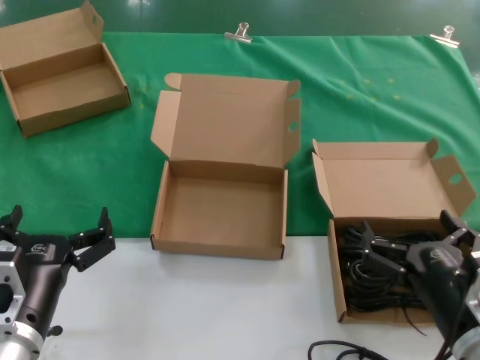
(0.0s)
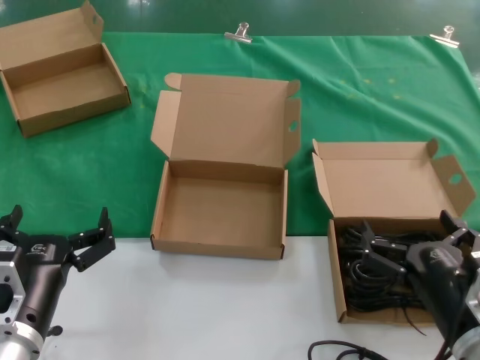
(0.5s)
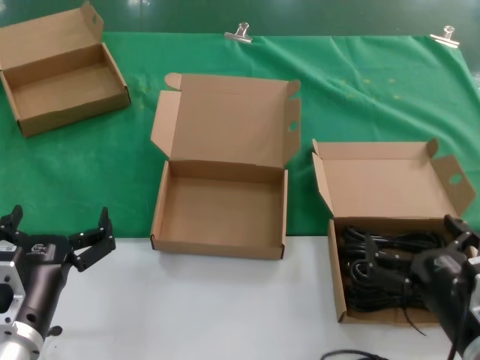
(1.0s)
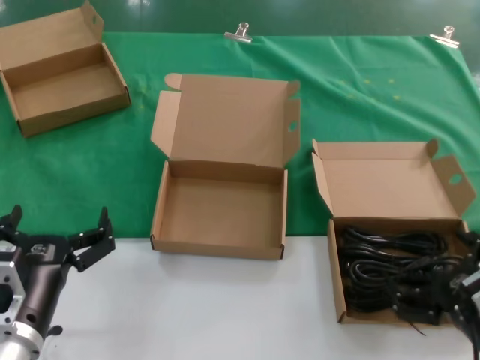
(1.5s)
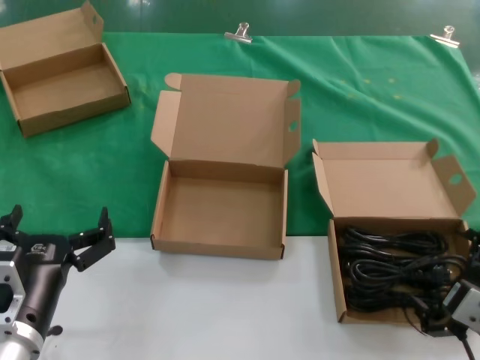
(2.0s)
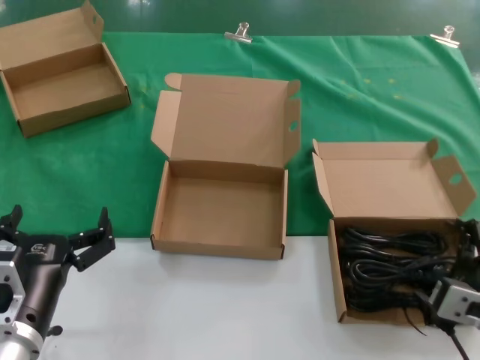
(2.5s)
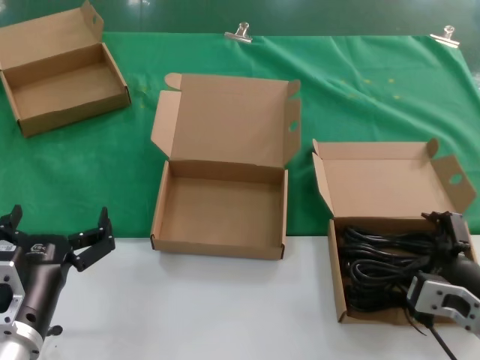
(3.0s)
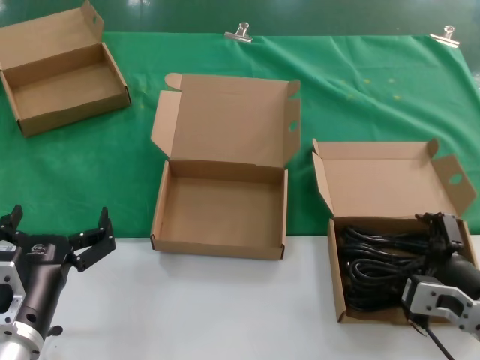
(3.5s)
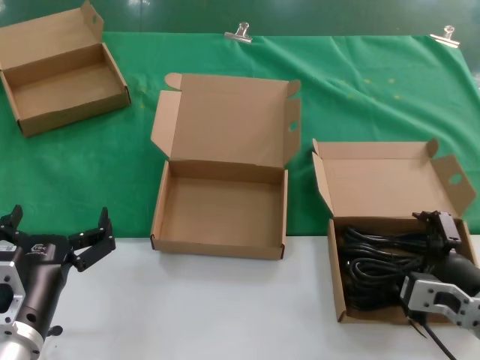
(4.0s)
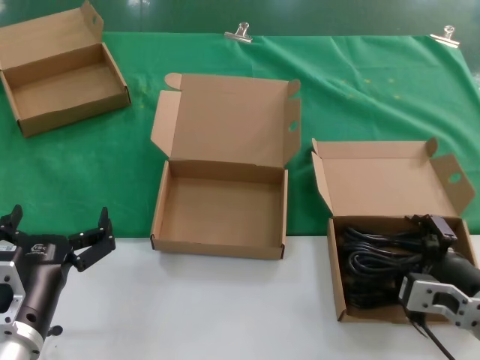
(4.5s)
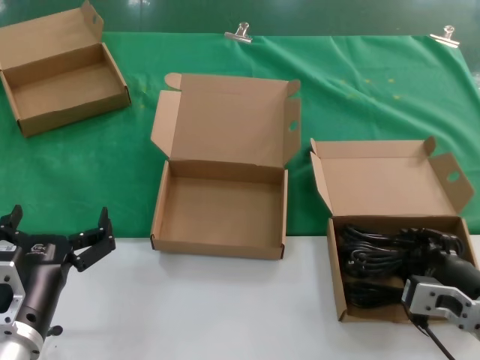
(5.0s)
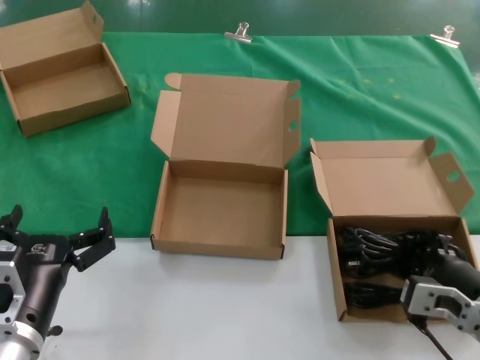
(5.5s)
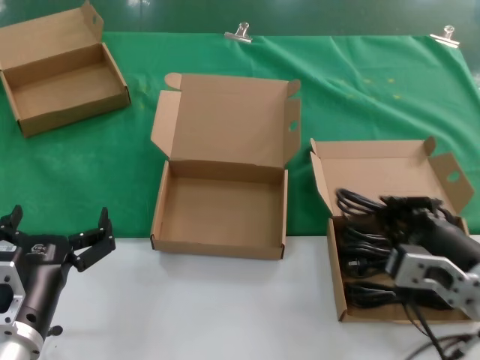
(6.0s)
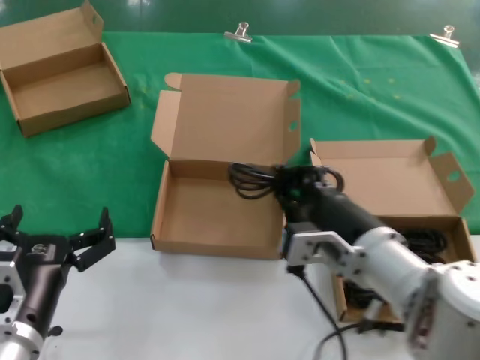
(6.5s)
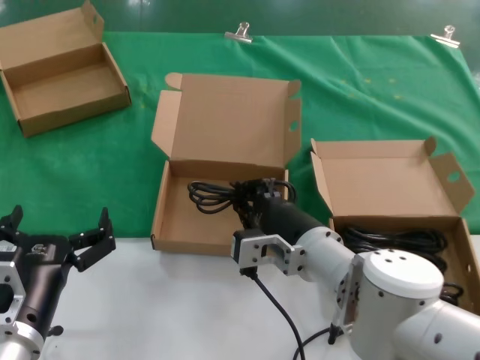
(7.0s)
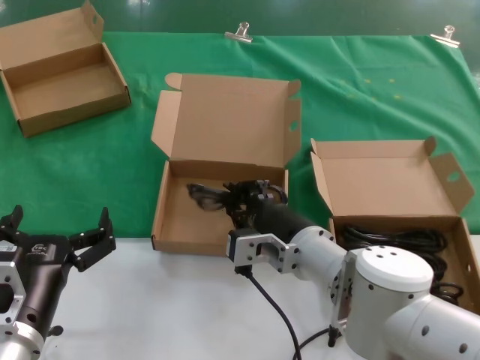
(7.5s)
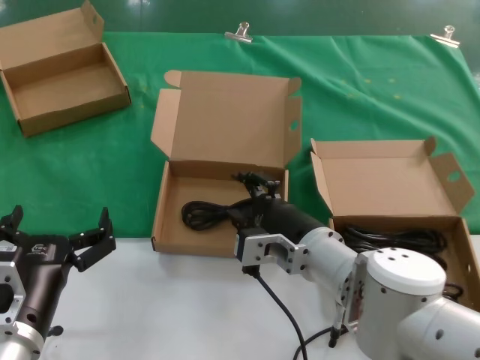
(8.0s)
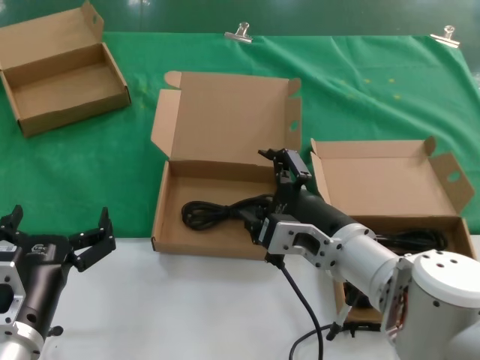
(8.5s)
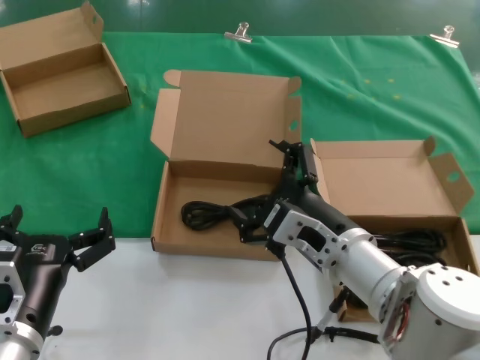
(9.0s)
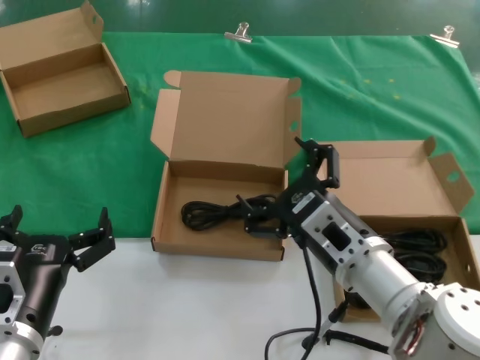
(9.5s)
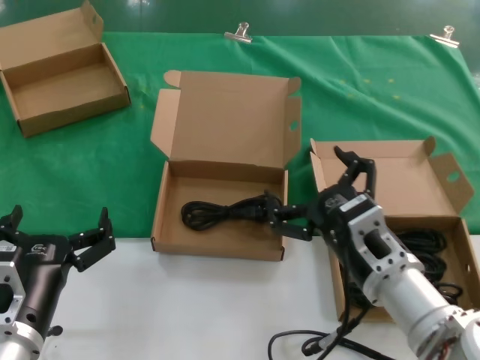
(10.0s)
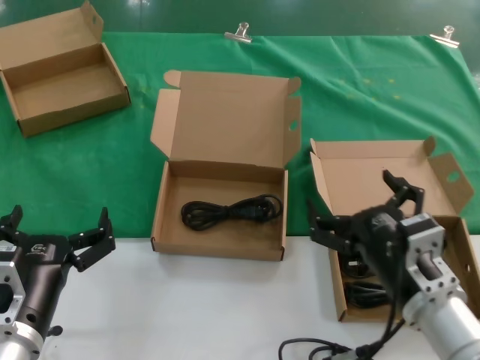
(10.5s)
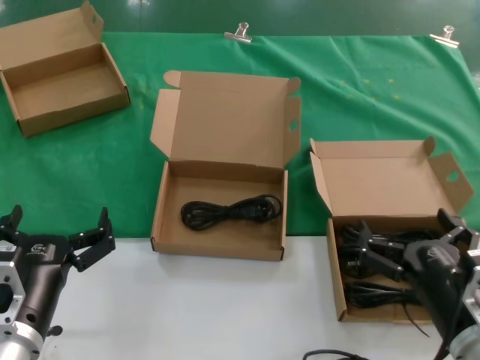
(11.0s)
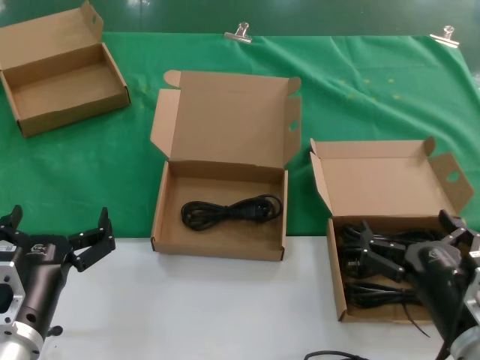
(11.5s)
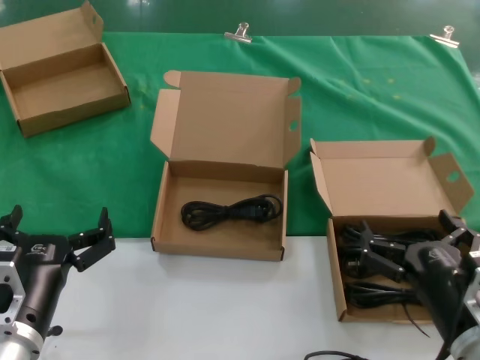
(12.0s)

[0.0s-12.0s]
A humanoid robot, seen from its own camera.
Task of the whole recording: take the parts from the box containing them and put them into an empty box.
Step, 0.0s to 5.0s: Grasp the data cable.
Step, 5.5s to 7.5s: Place the data cable in the another box.
0.0s to 2.0s: The right hand ends up about 5 cm from where it was.
2.0s to 4.0s: The right hand is displaced forward by some 5 cm.
4.0s to 6.0s: The right hand travels upward by roughly 5 cm.
6.0s to 8.0s: The right hand heads to the left and forward, covering about 20 cm.
8.0s to 10.0s: The right hand is displaced backward and to the right by about 10 cm.
10.0s to 12.0s: The right hand heads to the right and backward, covering about 10 cm.

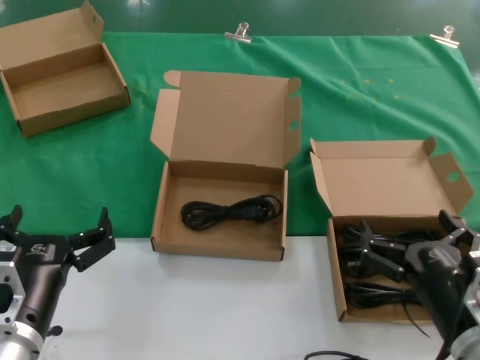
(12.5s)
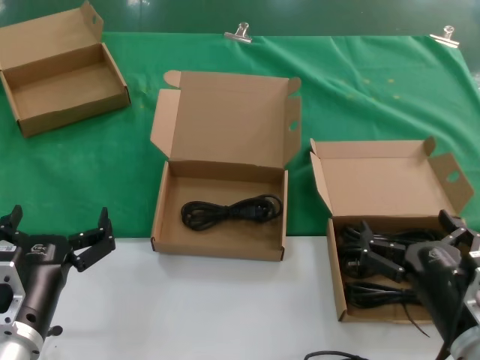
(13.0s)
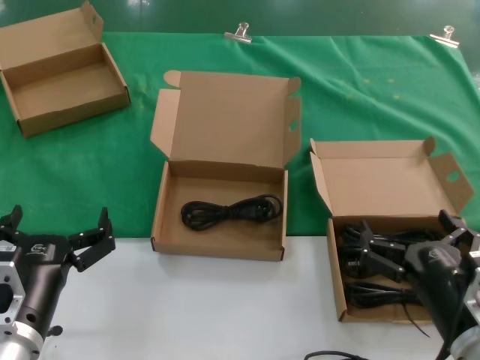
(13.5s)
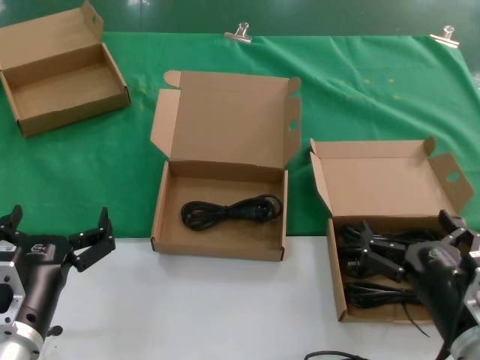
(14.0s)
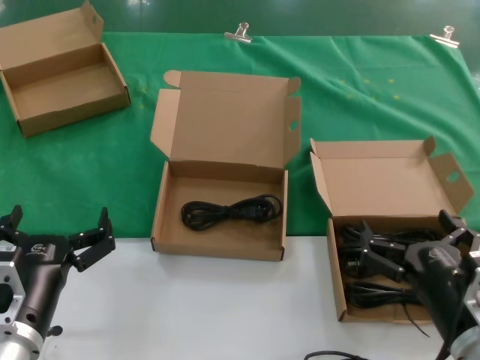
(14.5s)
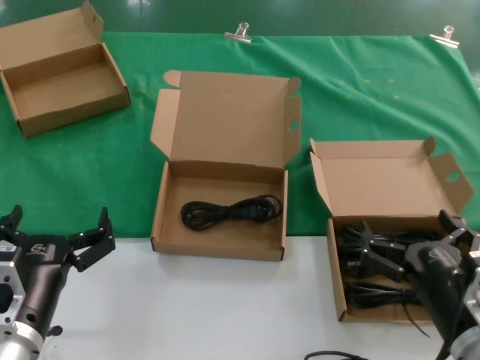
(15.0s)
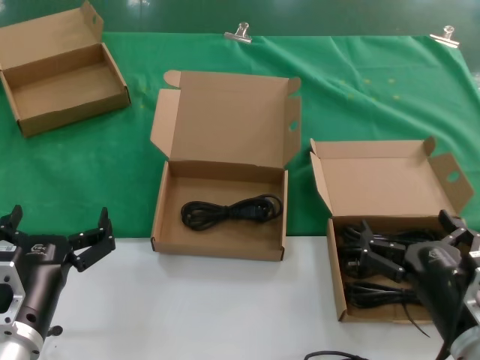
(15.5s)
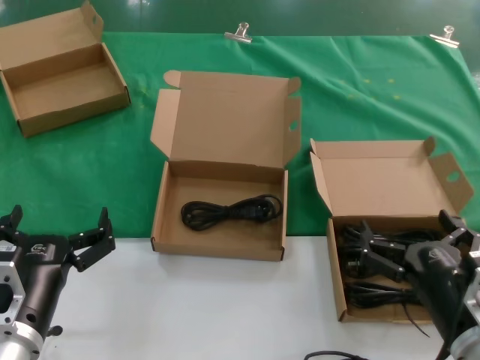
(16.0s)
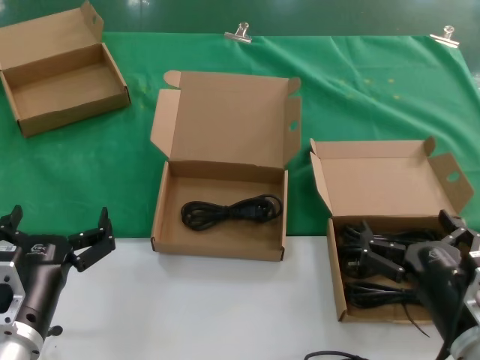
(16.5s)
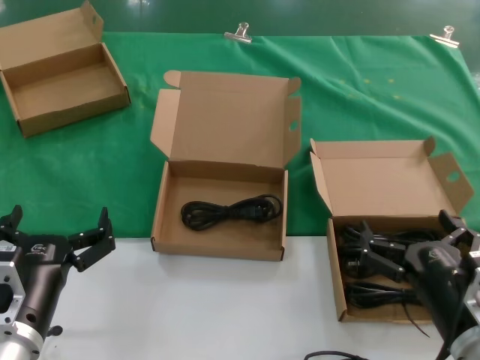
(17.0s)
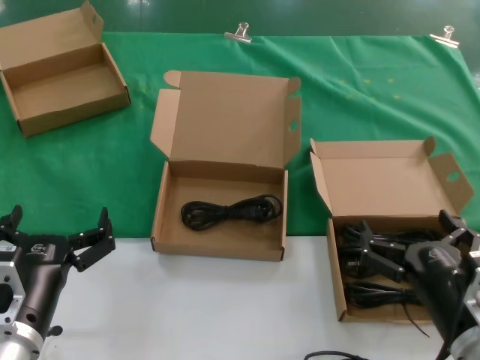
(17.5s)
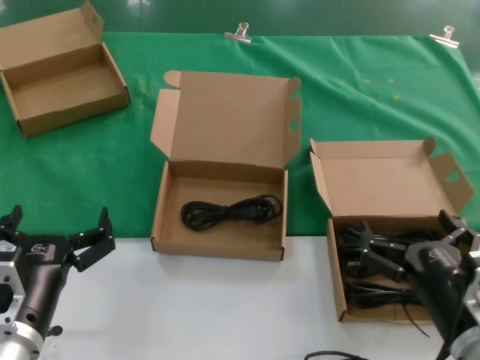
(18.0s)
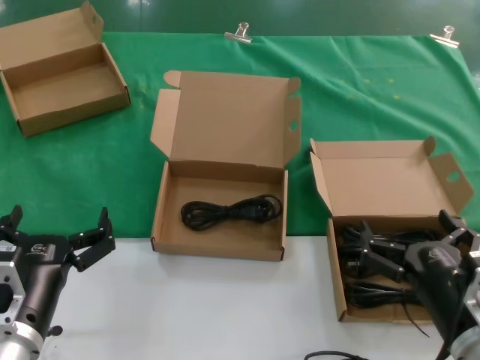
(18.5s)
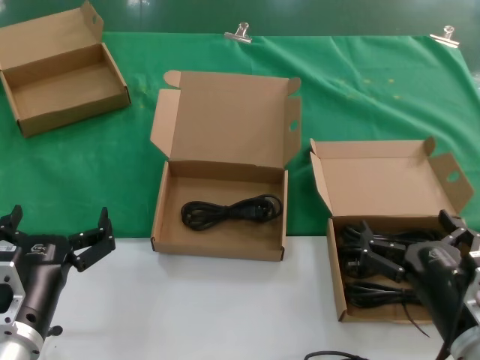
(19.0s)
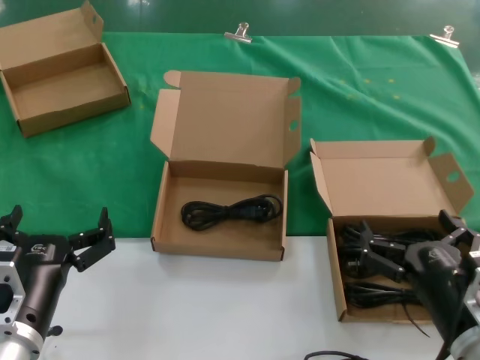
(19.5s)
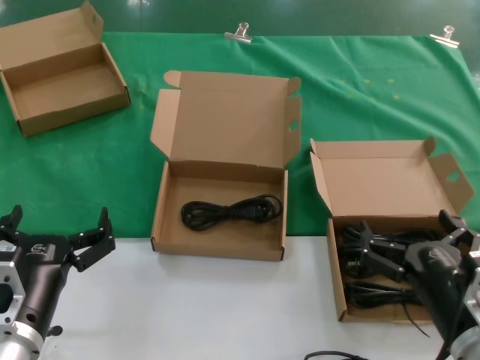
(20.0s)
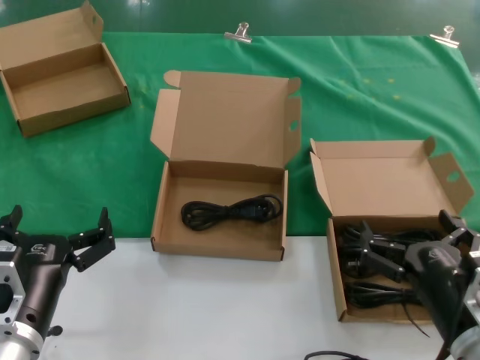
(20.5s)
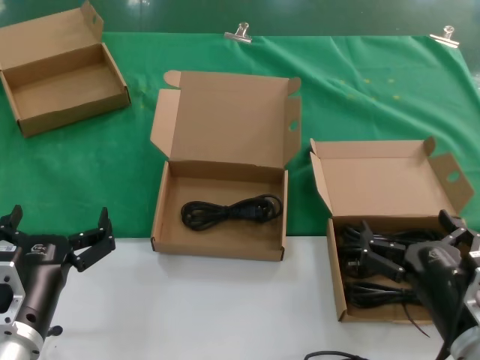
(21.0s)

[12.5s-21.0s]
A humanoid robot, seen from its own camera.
Task of the whole recording: take the parts from the box containing them and put them into an empty box.
12.5s to 21.0s: Both hands stay put.

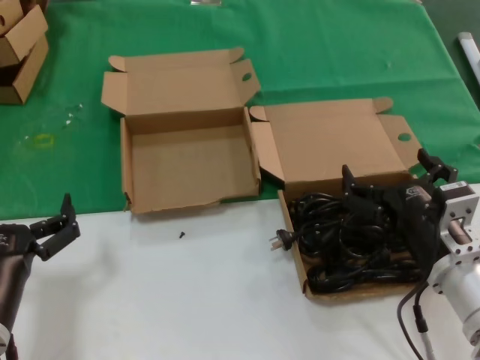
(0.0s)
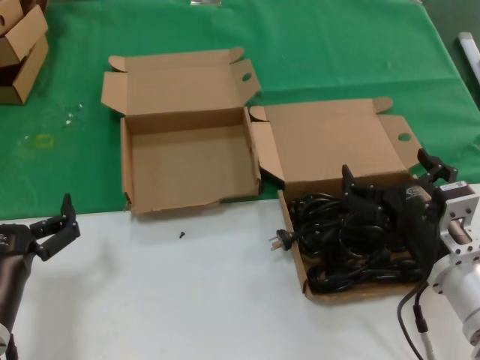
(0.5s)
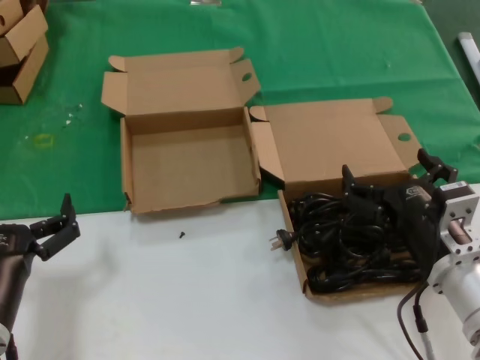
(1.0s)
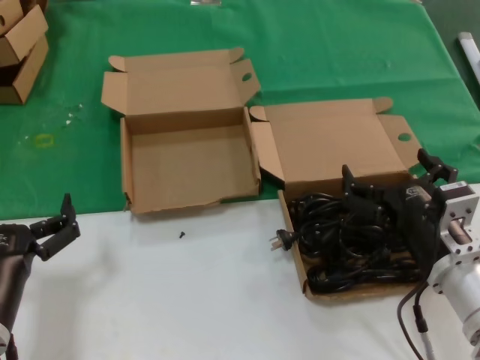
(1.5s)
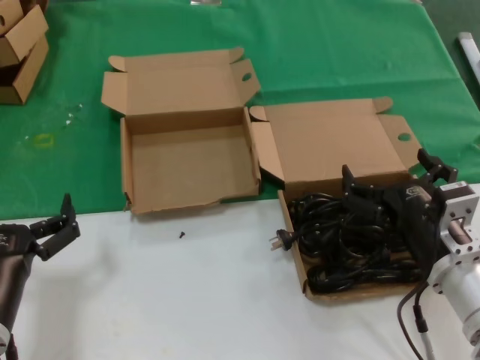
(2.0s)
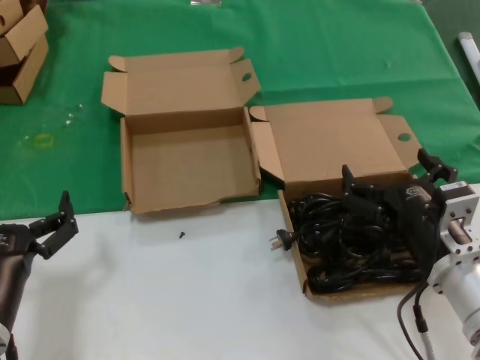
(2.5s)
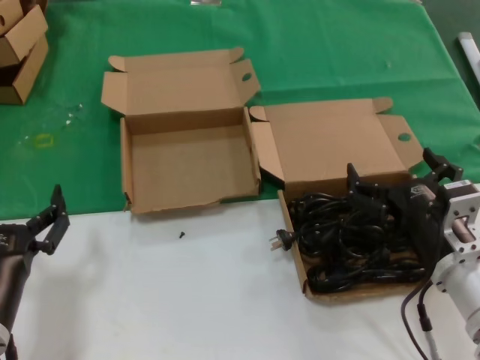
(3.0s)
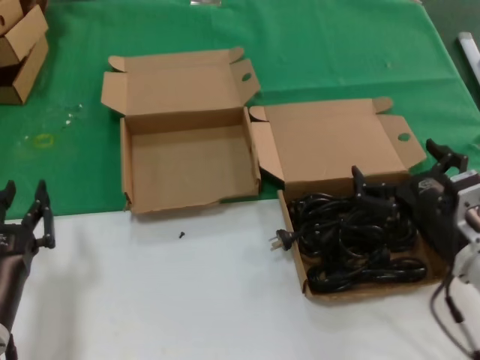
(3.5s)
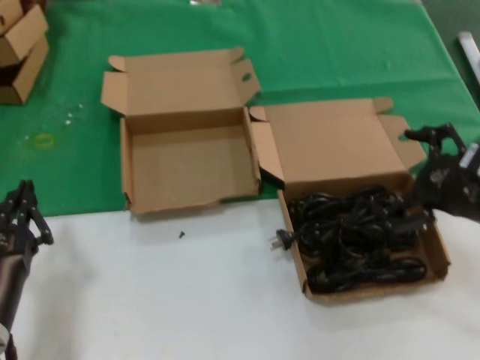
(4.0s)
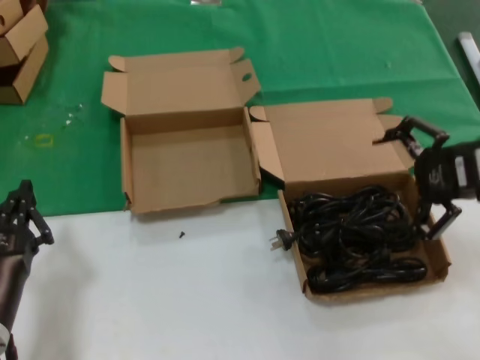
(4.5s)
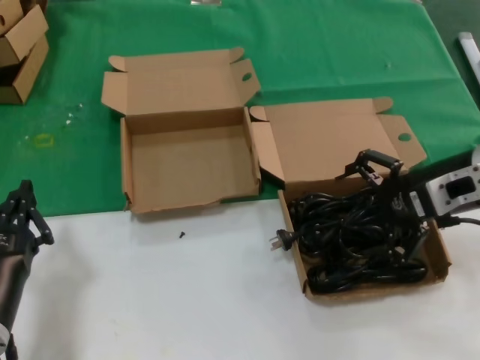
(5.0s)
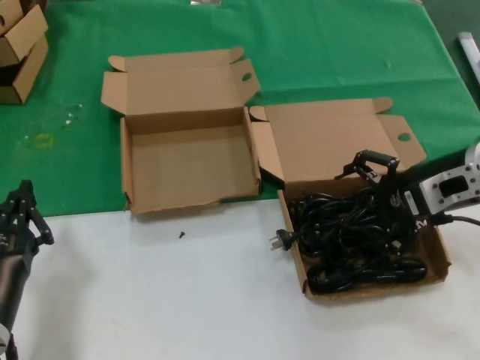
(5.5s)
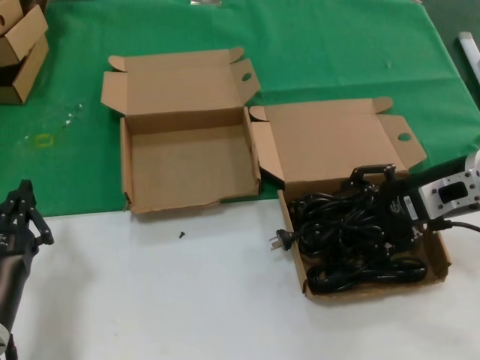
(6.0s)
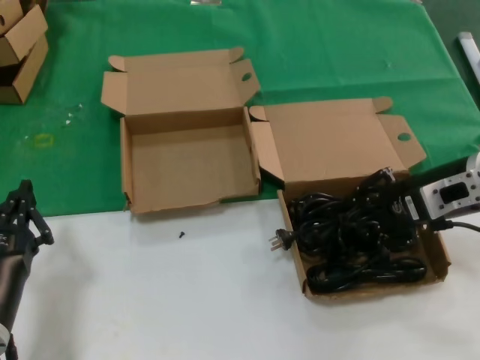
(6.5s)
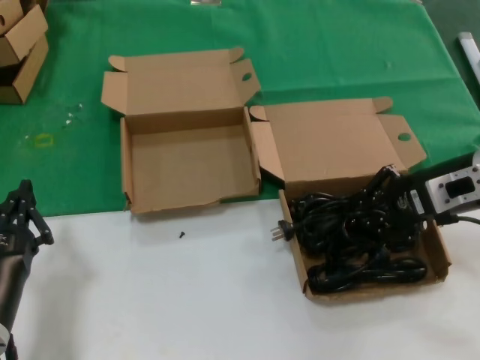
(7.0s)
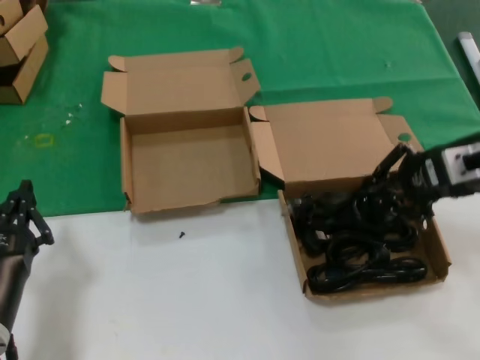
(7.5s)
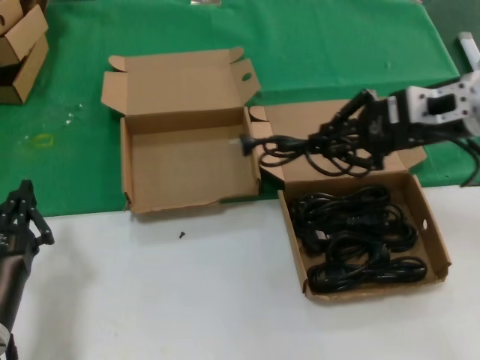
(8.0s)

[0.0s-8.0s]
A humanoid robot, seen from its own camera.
Task of the whole recording: take the parts from the box containing them and put them into an empty box.
Step, 0.0s to 6.5s: Grasp the data cable.
0.0s to 2.0s: Both hands stay put.
2.0s to 4.0s: The right hand is displaced upward and to the right by approximately 15 cm.
4.0s to 6.0s: The right hand moves forward, roughly 10 cm.
6.0s to 8.0s: The right hand is displaced upward by some 10 cm.
